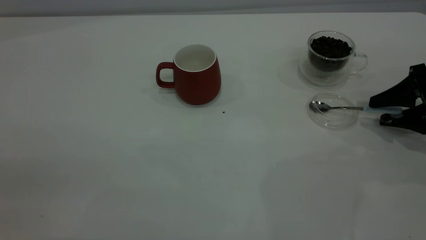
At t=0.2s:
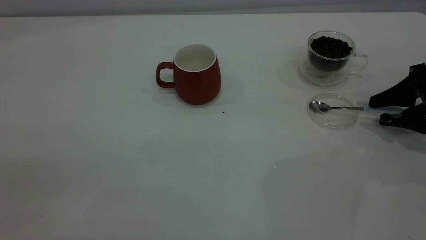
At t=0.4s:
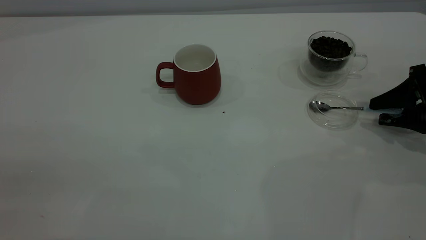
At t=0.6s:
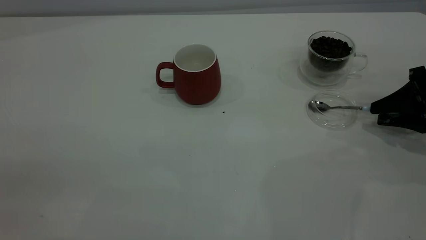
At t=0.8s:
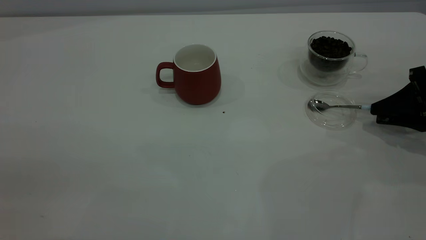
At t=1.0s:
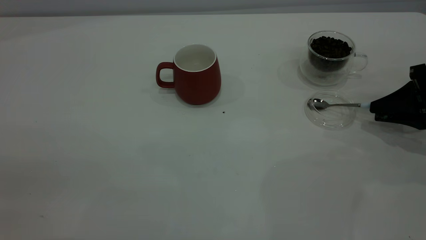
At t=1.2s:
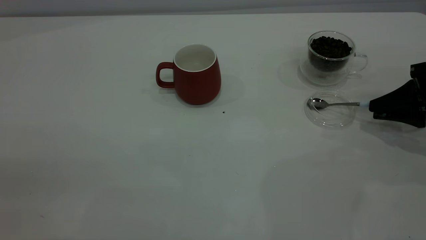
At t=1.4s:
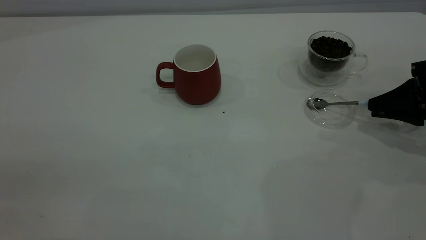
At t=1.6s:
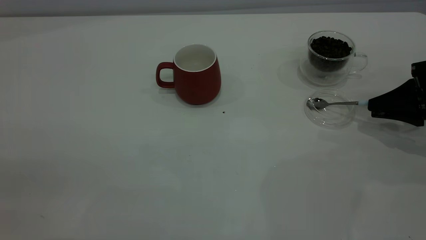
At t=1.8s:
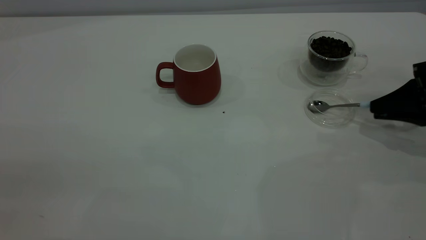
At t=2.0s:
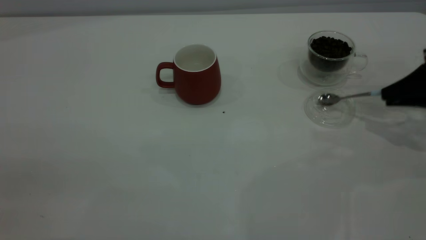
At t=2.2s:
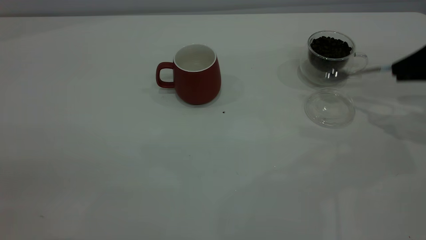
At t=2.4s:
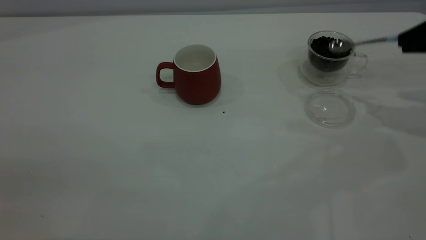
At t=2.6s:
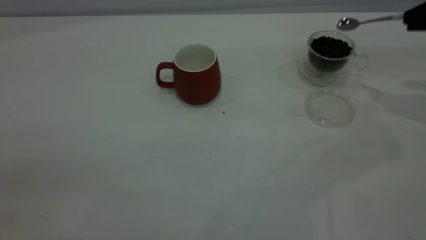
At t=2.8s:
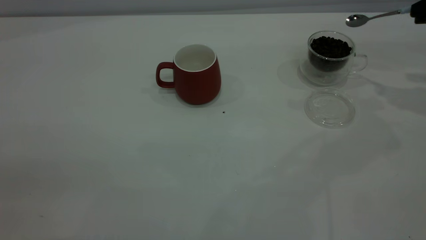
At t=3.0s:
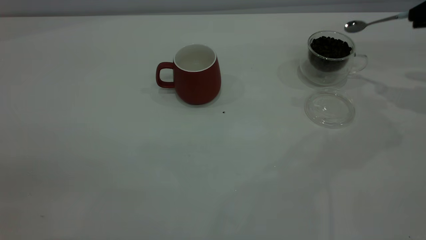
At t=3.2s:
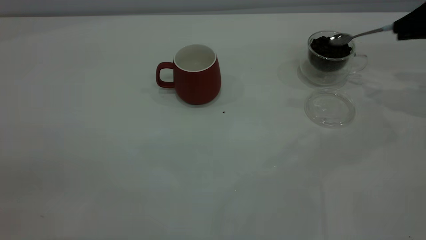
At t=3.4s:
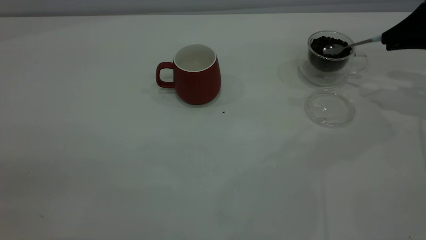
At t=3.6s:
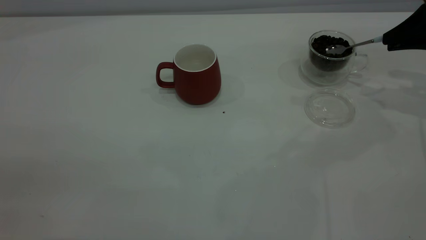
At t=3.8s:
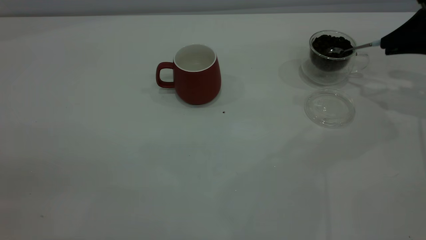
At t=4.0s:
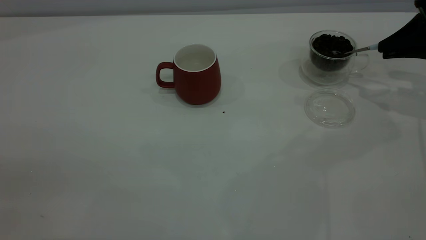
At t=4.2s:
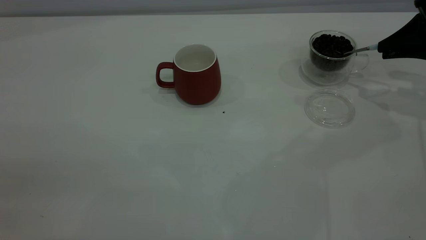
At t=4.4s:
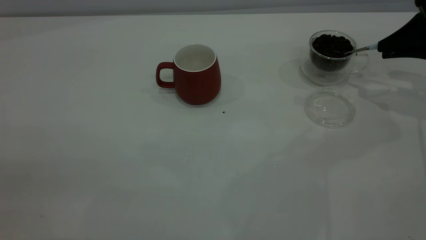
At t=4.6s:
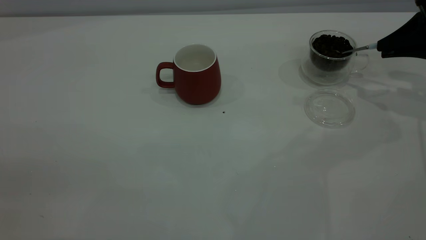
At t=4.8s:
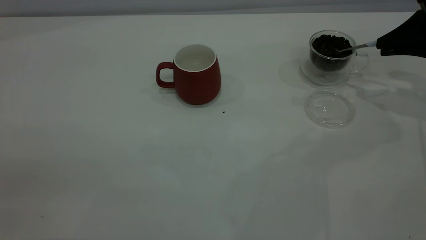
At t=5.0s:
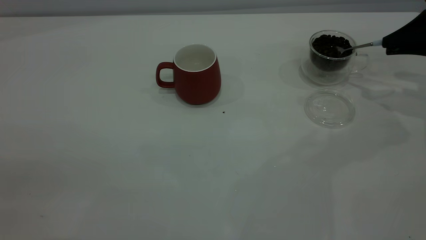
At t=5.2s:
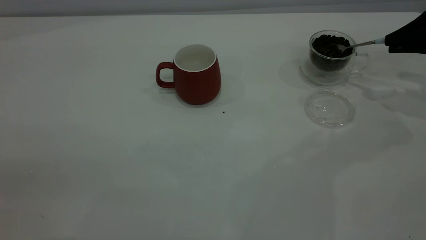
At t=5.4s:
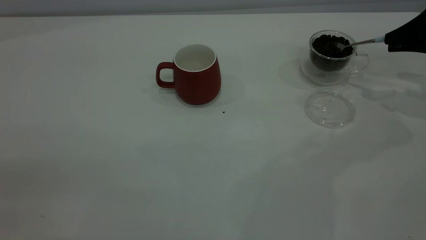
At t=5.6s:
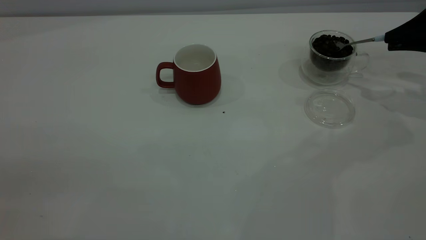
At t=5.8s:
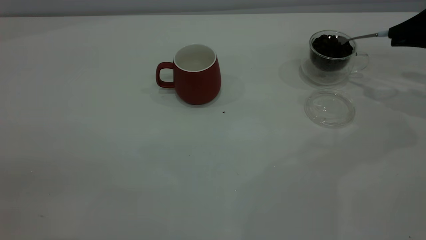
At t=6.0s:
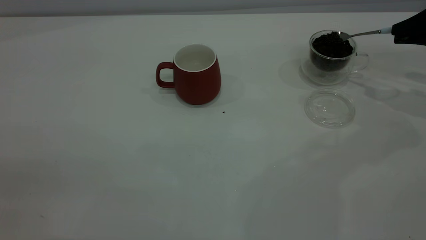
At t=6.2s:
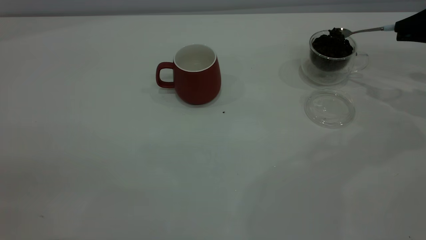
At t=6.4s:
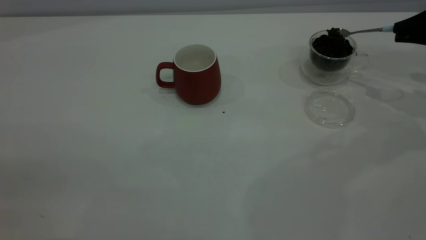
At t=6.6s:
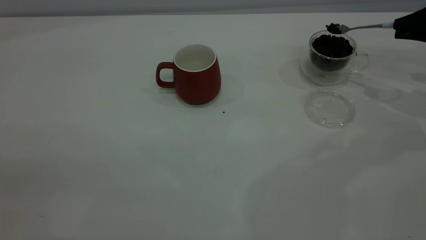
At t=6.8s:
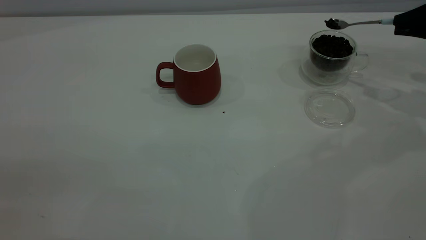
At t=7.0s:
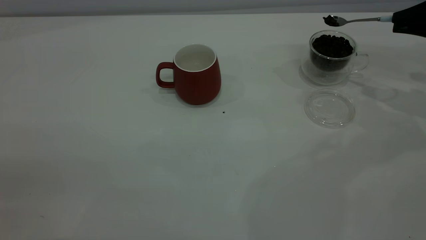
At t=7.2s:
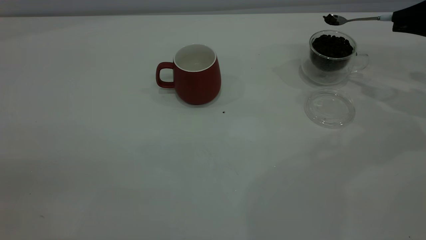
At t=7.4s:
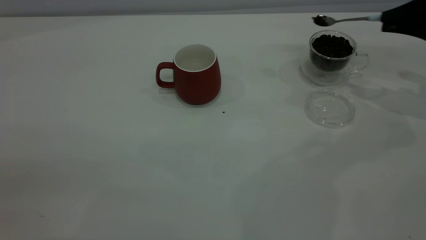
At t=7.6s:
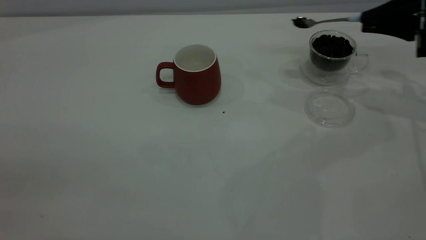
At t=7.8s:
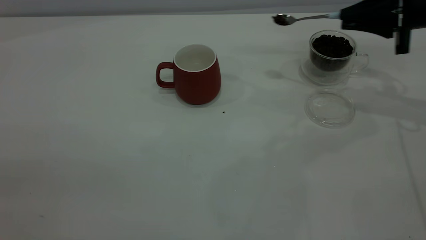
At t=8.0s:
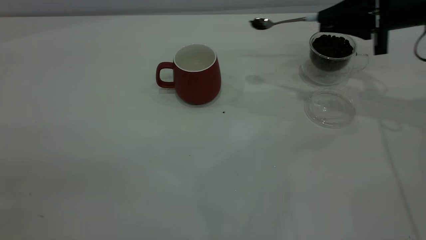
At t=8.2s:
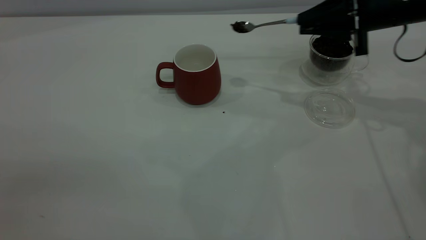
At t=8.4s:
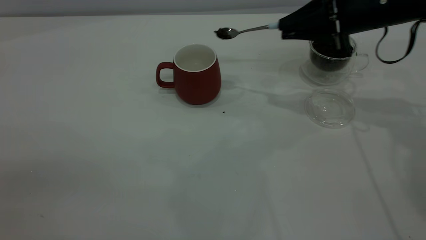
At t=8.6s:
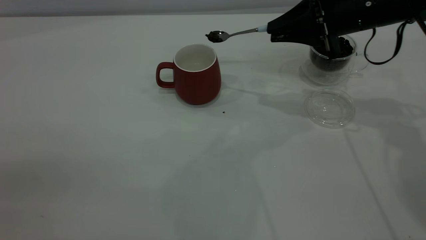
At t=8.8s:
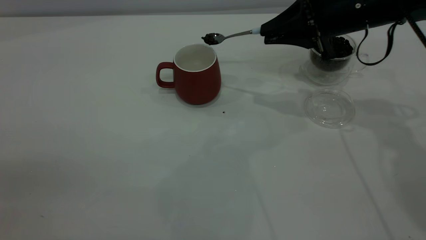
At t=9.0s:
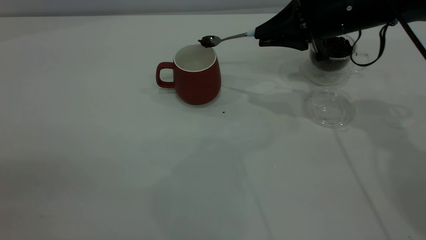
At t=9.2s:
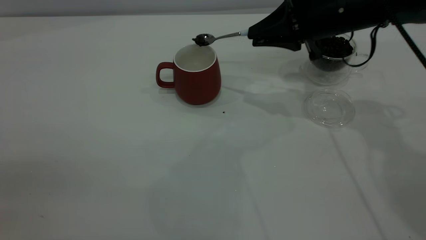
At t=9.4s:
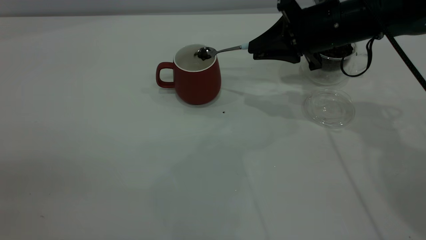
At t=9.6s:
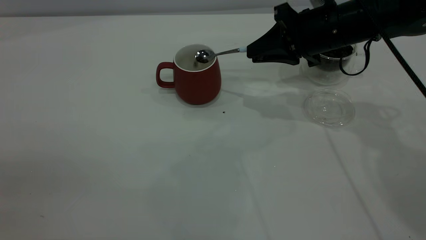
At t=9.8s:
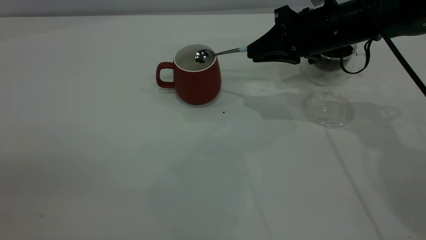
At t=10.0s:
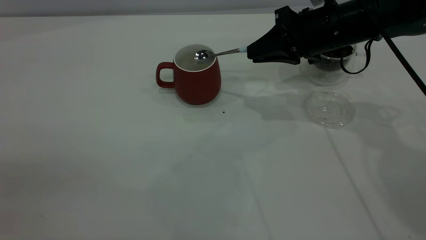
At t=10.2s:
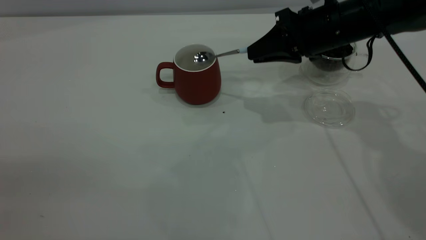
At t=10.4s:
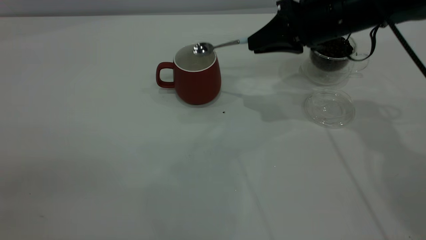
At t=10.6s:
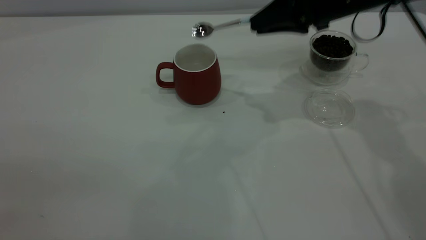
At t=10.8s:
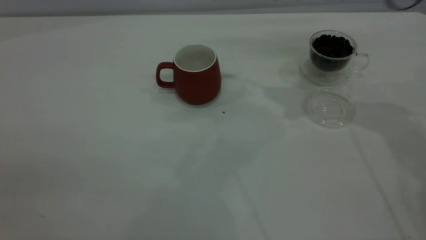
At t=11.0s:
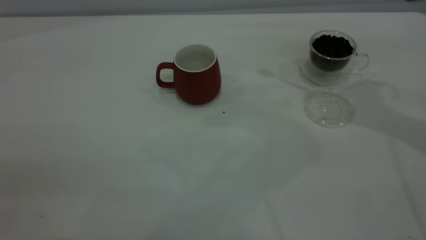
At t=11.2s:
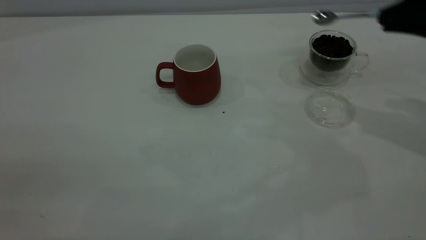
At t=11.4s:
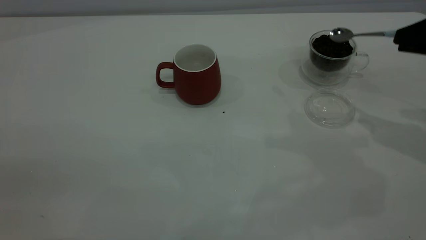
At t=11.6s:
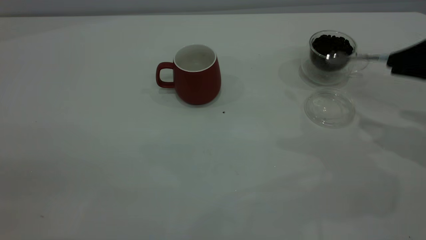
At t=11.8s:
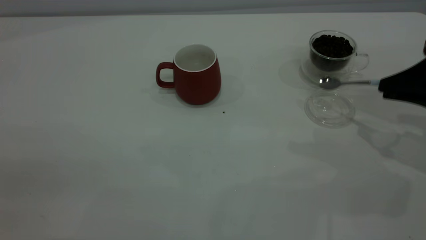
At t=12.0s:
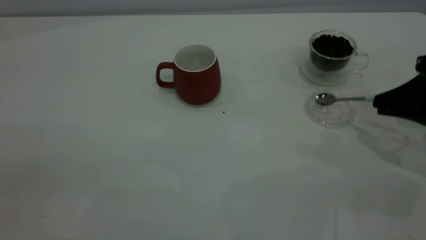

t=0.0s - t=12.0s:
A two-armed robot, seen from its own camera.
Task of the whole recording: the left gripper place the red cup in the center of the table, the right gripper take the blue spoon from the cup lid and scoop out the coffee beans from the coffee cup and put them into the red cup, the right gripper put the spoon back into the cup lid.
Step, t=0.0s - t=2.0s: Pick up the spoon.
Step, t=2.2s - t=10.4s: Scoop a spoonful of beans into the cup.
t=0.0s - t=1.6s: The right gripper closes its fingers.
t=1.6s - t=3.0s: The right gripper goes some 15 cm upward and forward.
t=3.0s - t=4.4s: The right gripper ends up roughly 5 cm from where it was.
t=4.4s - t=6.0s: There are only small adjustments of the grippers.
t=6.0s - t=7.6s: The right gripper travels to the left by about 5 cm.
t=7.6s - t=9.0s: The right gripper shifts about 15 cm to the left.
t=10.4s - t=12.0s: The right gripper moves to the right and backward, some 20 cm.

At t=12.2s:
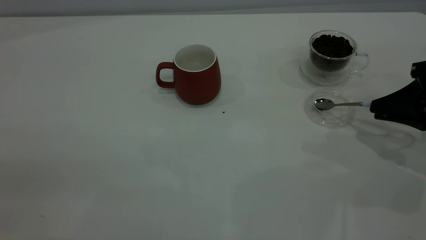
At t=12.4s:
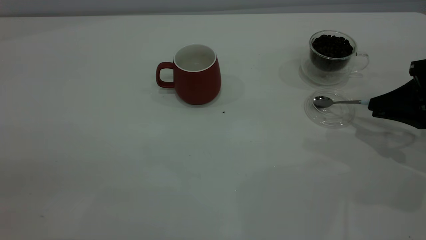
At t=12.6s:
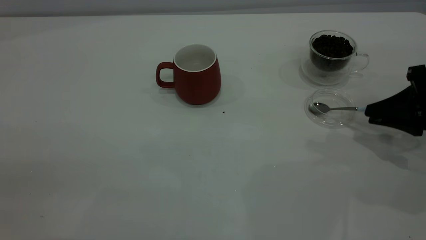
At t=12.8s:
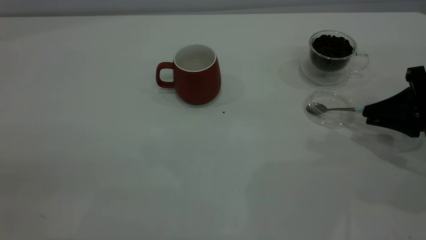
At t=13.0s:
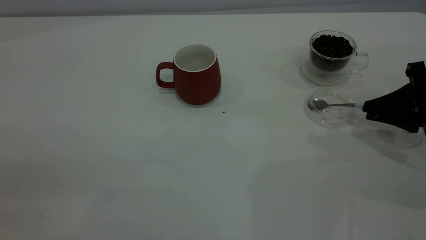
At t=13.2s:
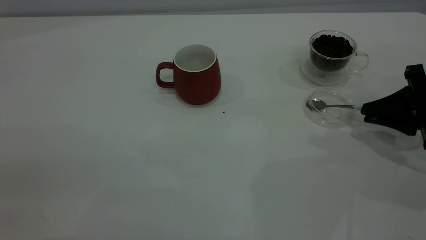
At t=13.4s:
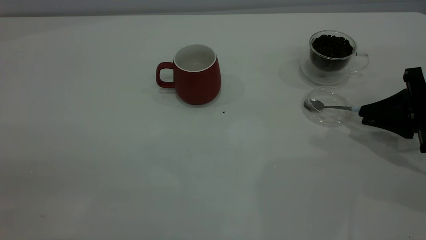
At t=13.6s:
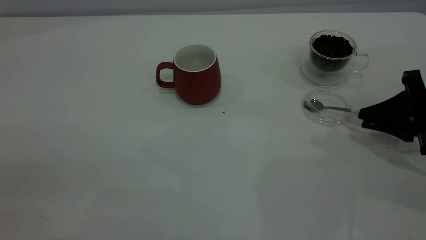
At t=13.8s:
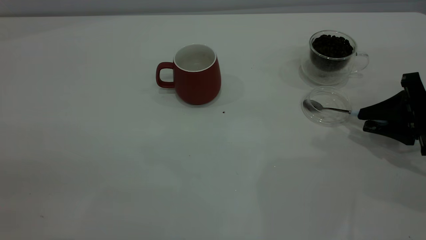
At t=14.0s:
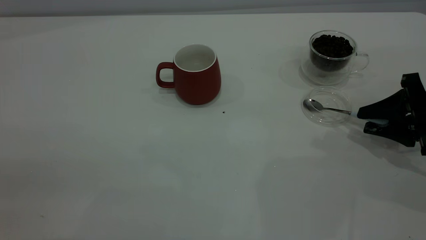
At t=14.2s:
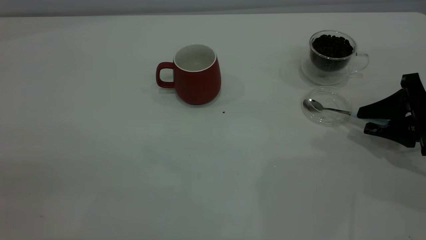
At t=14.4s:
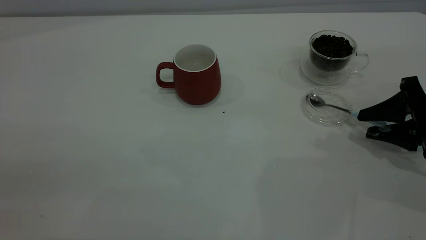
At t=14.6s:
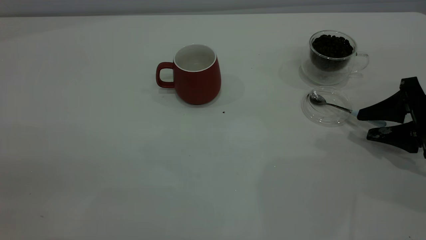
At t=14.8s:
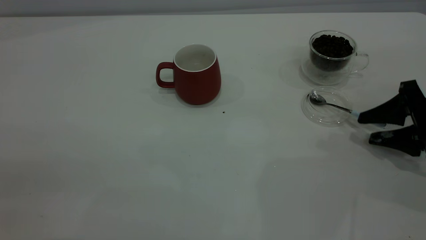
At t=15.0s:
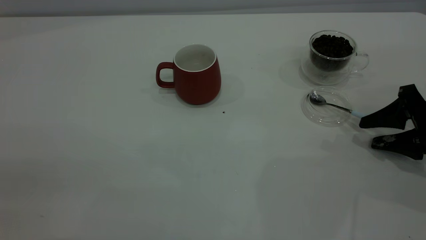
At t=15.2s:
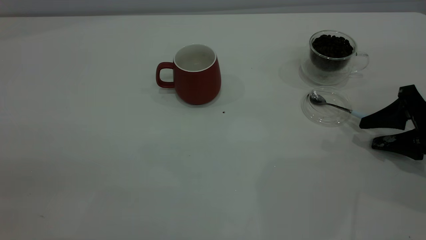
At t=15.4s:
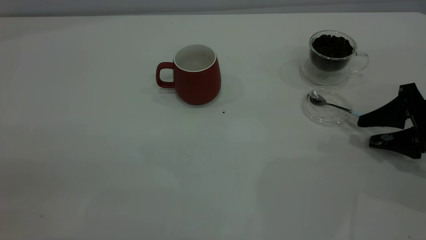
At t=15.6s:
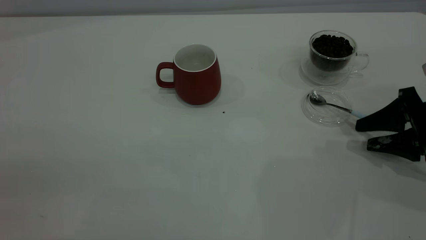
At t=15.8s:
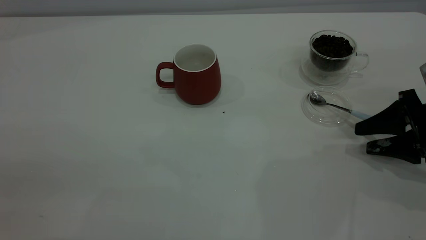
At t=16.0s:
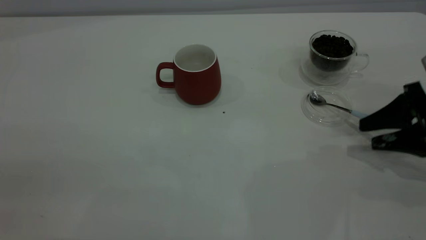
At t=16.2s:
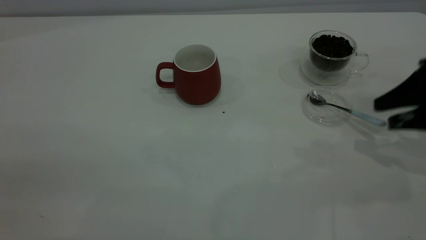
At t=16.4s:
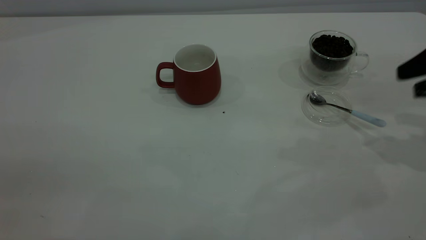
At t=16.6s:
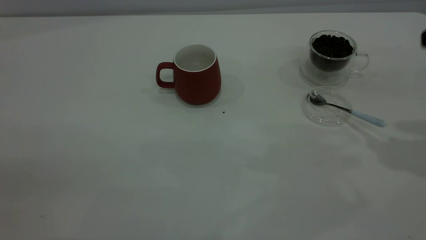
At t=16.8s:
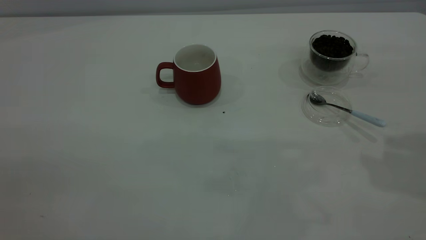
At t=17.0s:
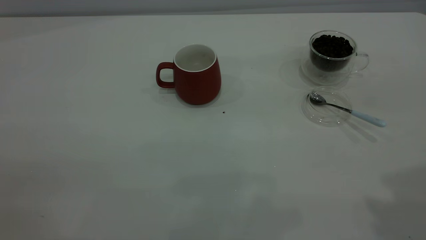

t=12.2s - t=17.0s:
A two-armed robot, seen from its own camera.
Task of the whole recording: the left gripper place the red cup in the center of the table, the right gripper take the blue spoon from the cup lid and scoop out the coffee beans from the coffee cup and put them into the red cup, the right gripper put the spoon back into the cup lid.
Step, t=12.2s - t=15.4s: Place the spoon back in its original place.
t=12.2s - t=13.8s: The right gripper opens.
t=13.8s - t=15.4s: The right gripper opens.
t=15.4s - t=17.0s: The right gripper moves upward, some 30 cm.
